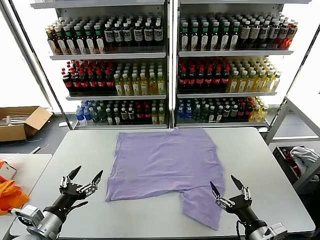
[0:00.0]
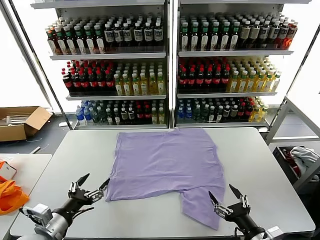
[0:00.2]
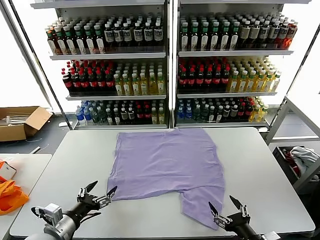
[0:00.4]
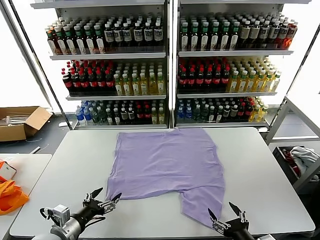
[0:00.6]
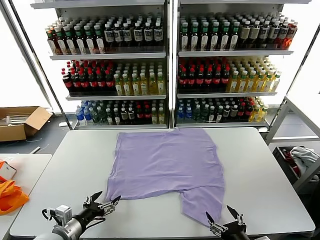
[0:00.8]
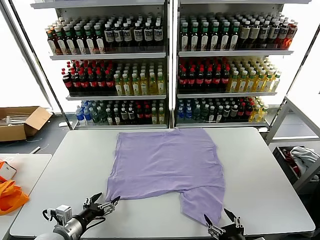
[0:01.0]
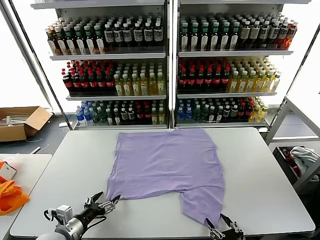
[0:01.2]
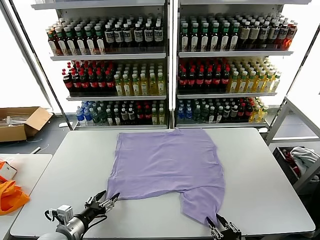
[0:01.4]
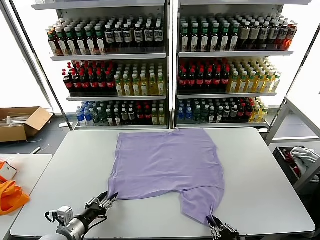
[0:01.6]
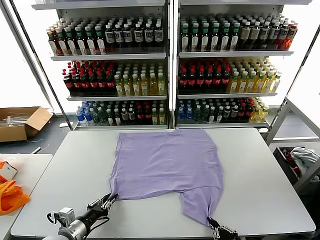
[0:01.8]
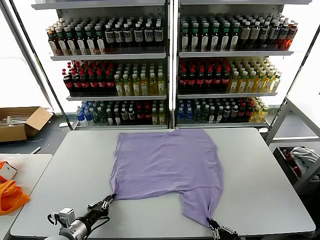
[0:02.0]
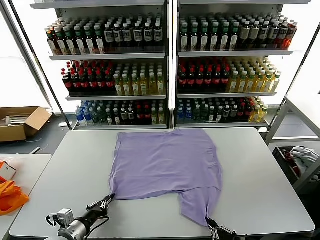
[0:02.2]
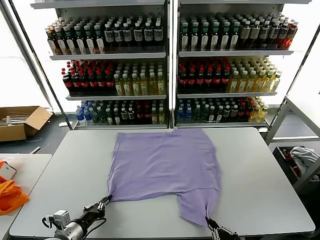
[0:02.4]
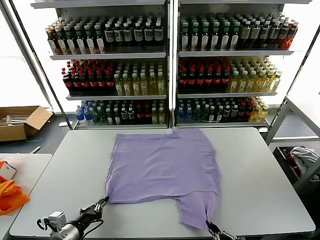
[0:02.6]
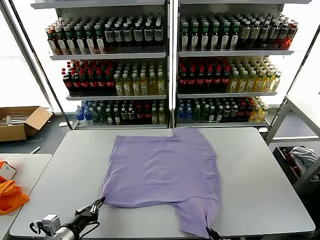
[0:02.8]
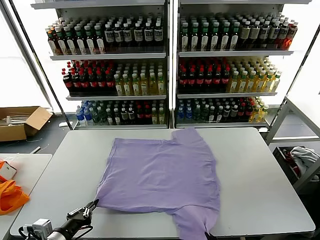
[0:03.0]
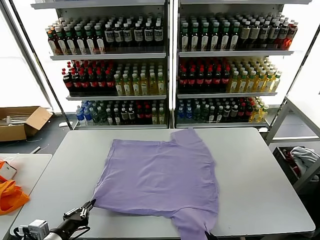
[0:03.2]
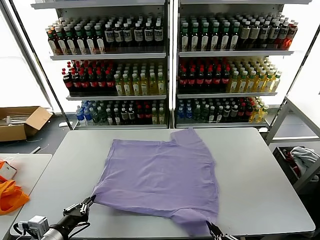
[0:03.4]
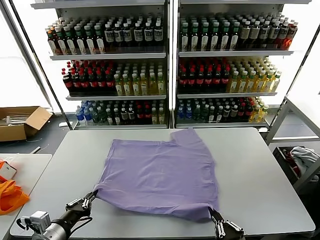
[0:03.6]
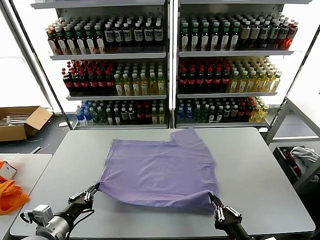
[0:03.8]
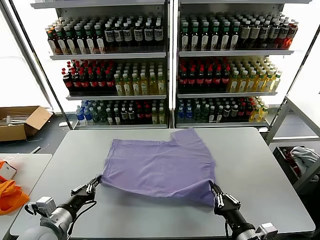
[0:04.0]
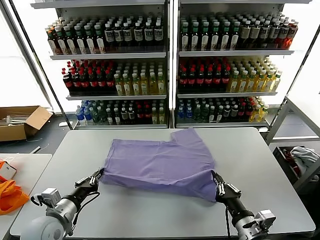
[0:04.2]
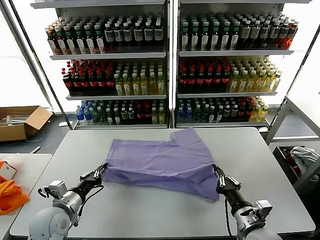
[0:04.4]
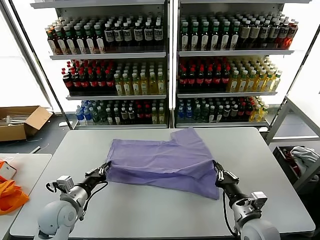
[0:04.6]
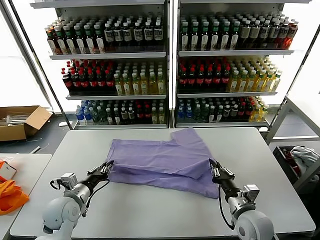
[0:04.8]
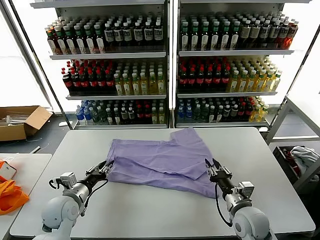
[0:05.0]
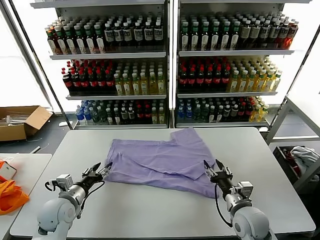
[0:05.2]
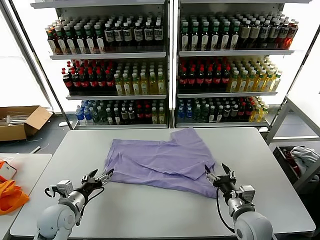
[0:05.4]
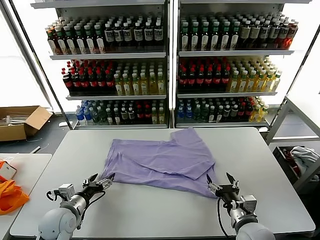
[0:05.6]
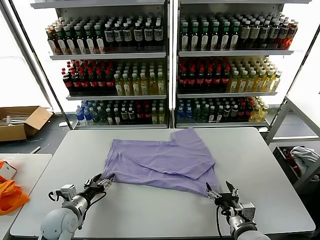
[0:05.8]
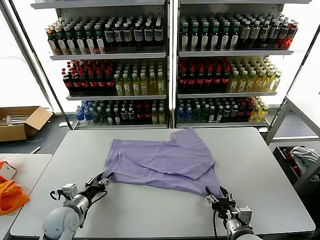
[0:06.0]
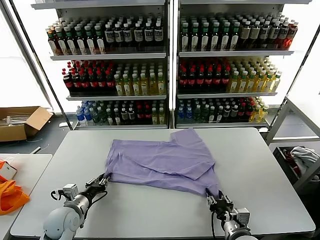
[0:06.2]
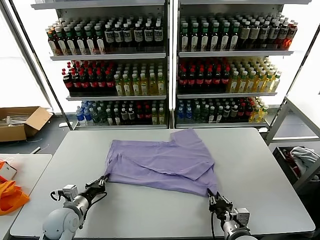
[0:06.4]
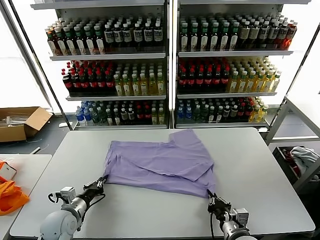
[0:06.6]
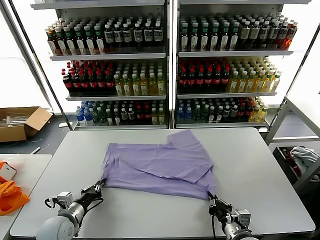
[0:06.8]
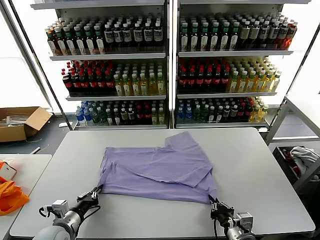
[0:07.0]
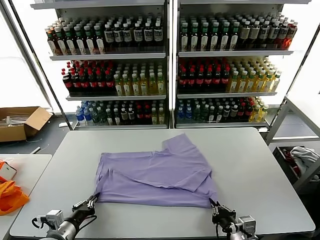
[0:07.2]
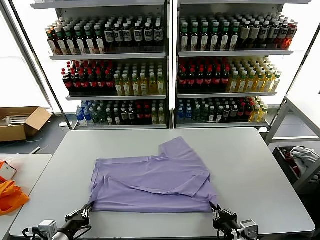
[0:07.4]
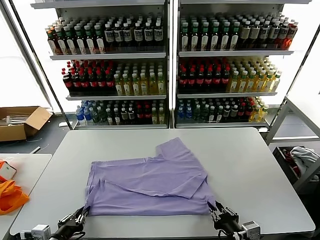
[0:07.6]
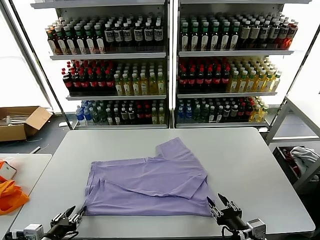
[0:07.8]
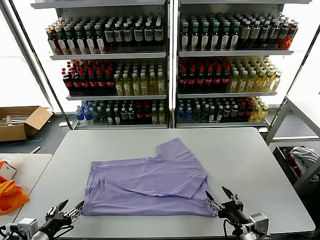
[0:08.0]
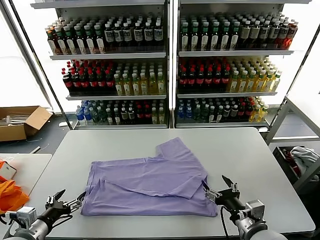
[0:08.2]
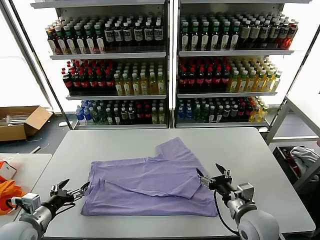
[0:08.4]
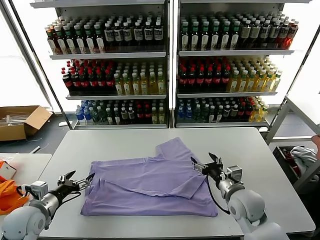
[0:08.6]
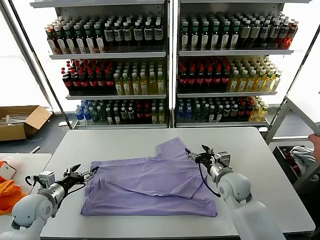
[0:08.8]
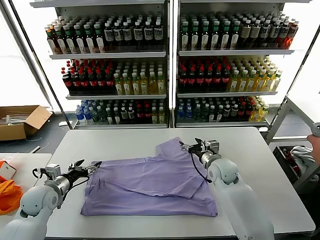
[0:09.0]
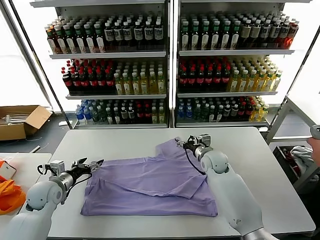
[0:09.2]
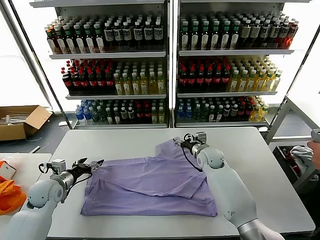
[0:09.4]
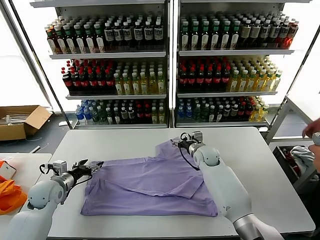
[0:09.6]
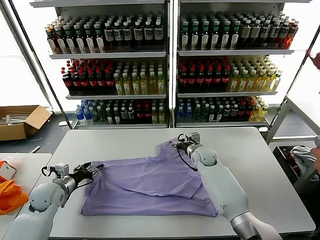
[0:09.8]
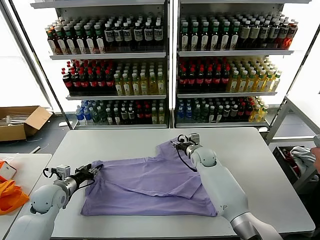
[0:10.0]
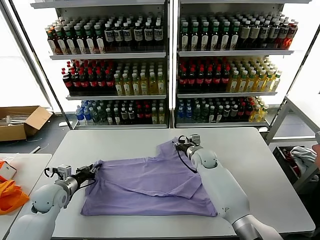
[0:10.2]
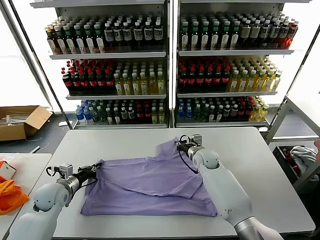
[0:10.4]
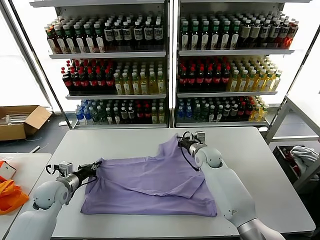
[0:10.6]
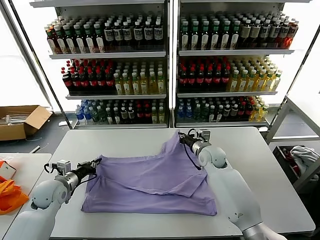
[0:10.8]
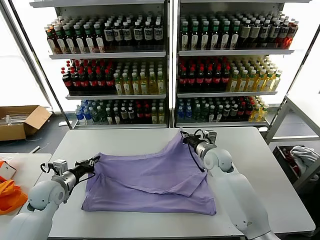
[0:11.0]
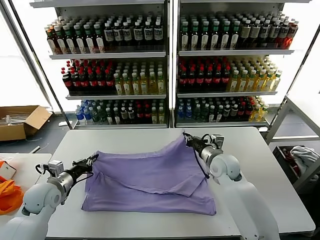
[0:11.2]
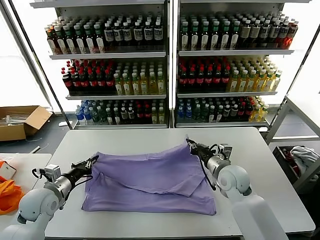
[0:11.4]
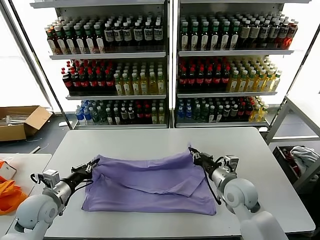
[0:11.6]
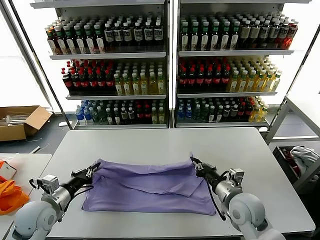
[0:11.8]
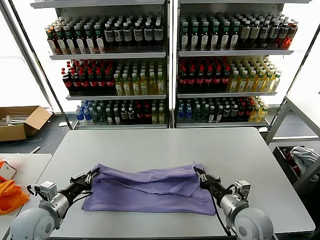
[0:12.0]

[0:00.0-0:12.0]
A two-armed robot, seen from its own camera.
Task of the whole recording: fold and organize the clothes.
Step, 0.0 to 2.6 s: use both grippers simultaneously to clamp the lower edge of the clothing fabric.
Step, 2.8 to 5.2 s: use both grippers to drag the lower edge of the fabric forward and fold it over the upper edge.
Step, 5.4 to 8.0 s: Drag the clothes downward with both gripper.
Step, 8.2 to 10.4 s: use both grippers simultaneously to clamp the upper edge of the clothing fabric.
1.6 to 3.0 s: The left gripper shifts about 10 cm upward and backward, and closes its fingers; the right gripper shifts roughly 10 cm backward and upward.
3.0 to 4.4 s: The left gripper is displaced forward by roughly 10 cm. Meanwhile the right gripper is displaced forward by roughly 20 cm.
4.4 to 6.0 s: The right gripper goes forward and returns, approximately 5 cm each way, and opens up, while the left gripper goes roughly 5 cm downward, and opens its fingers.
6.0 to 7.6 s: The left gripper travels backward by some 15 cm, while the right gripper is displaced backward by some 5 cm, and closes and opens again.
7.6 to 9.0 s: The left gripper moves forward, roughly 20 cm, and opens up. The right gripper travels forward by roughly 30 cm, and opens up.
9.0 to 10.4 s: The left gripper closes up, while the right gripper shifts by roughly 5 cm, and closes.
10.4 to 12.0 s: The right gripper heads backward, covering some 25 cm; the left gripper shifts about 10 cm backward and upward.

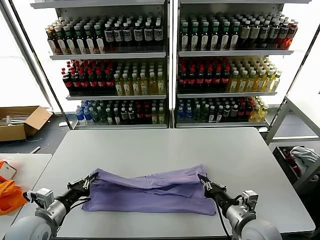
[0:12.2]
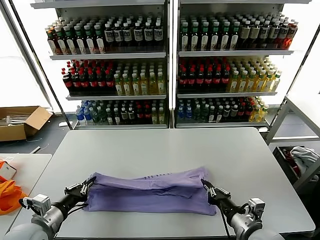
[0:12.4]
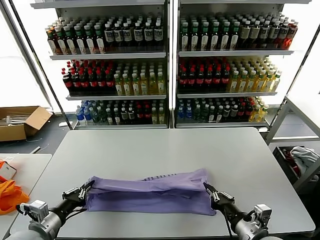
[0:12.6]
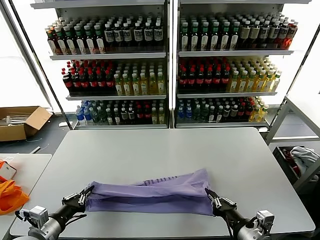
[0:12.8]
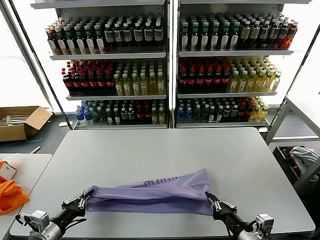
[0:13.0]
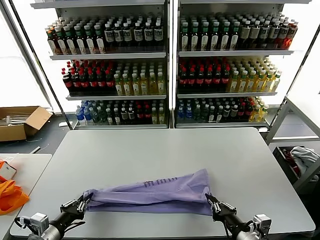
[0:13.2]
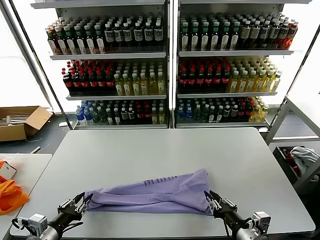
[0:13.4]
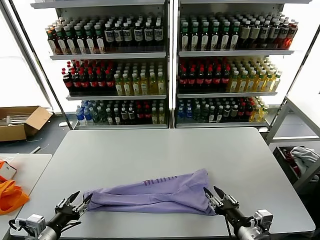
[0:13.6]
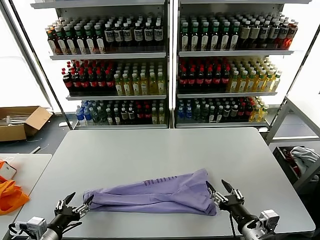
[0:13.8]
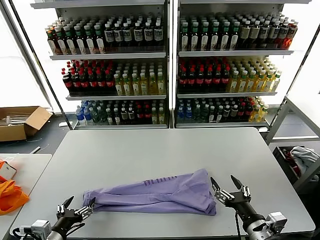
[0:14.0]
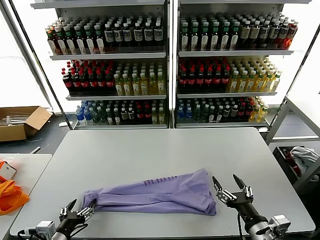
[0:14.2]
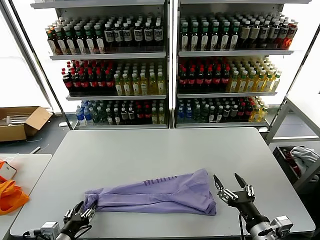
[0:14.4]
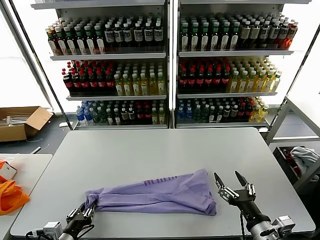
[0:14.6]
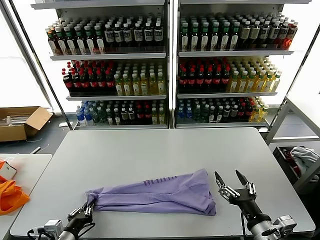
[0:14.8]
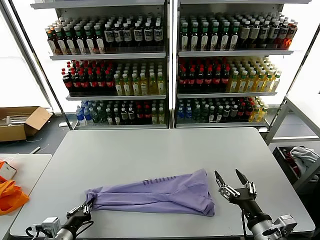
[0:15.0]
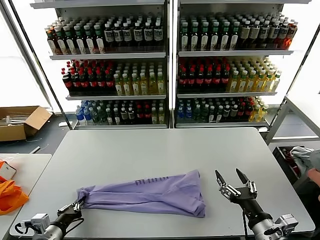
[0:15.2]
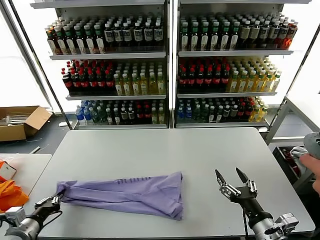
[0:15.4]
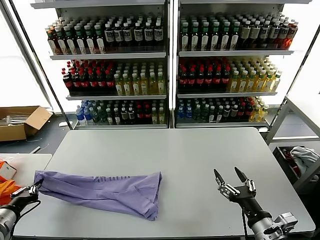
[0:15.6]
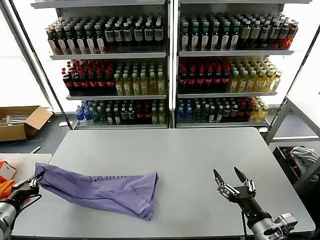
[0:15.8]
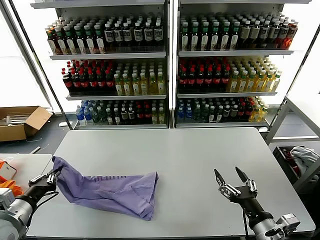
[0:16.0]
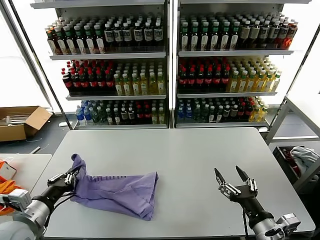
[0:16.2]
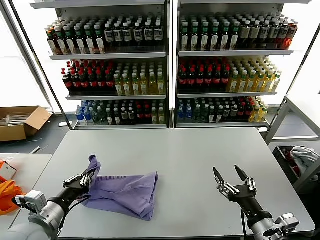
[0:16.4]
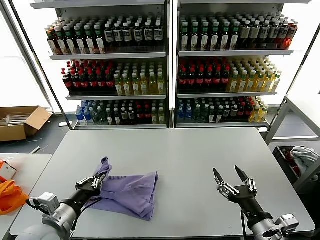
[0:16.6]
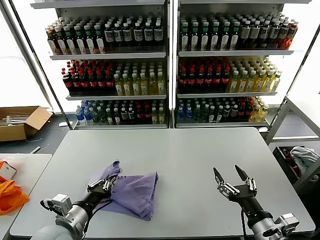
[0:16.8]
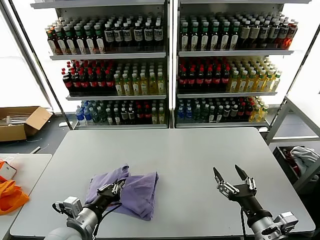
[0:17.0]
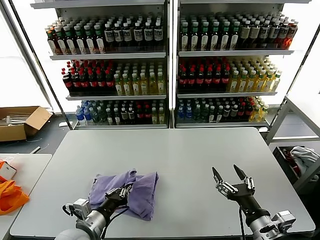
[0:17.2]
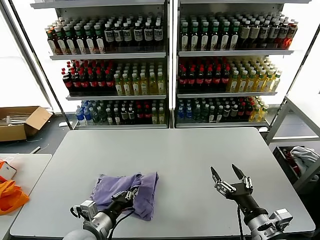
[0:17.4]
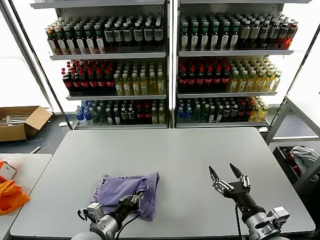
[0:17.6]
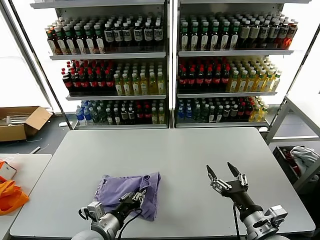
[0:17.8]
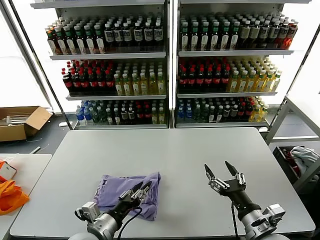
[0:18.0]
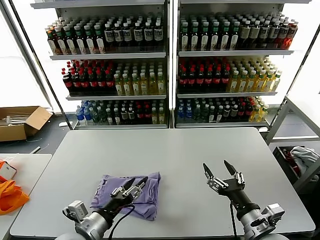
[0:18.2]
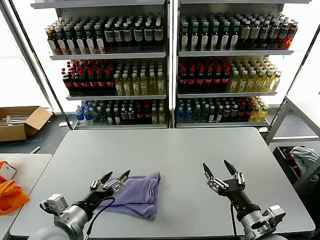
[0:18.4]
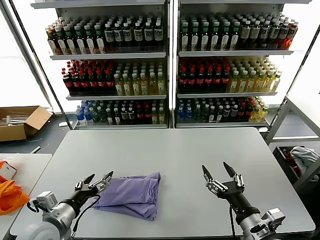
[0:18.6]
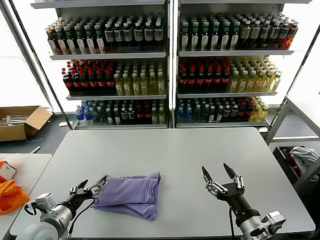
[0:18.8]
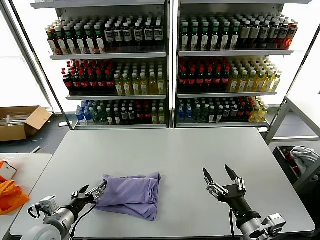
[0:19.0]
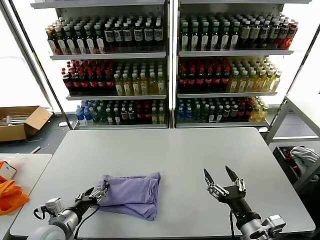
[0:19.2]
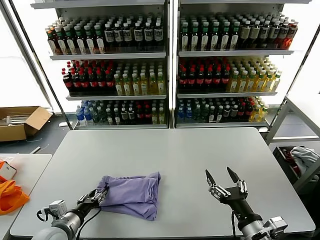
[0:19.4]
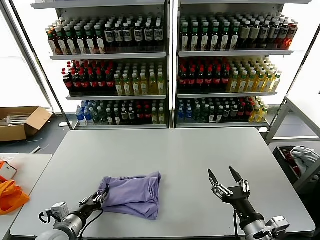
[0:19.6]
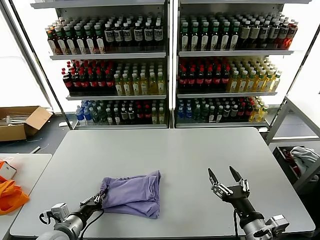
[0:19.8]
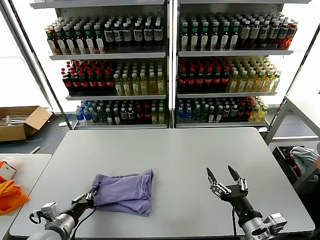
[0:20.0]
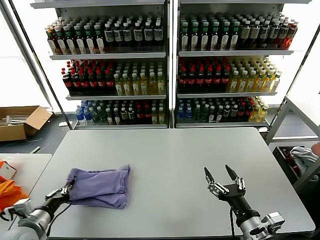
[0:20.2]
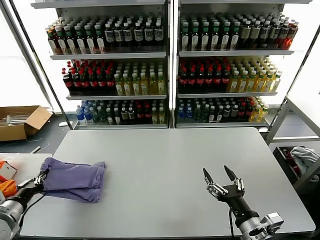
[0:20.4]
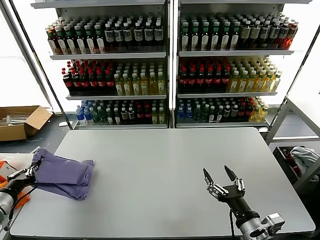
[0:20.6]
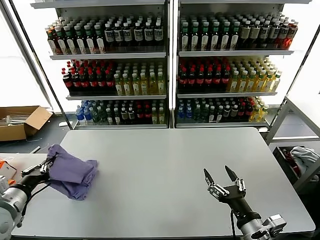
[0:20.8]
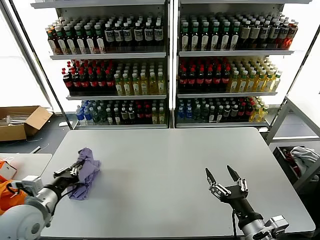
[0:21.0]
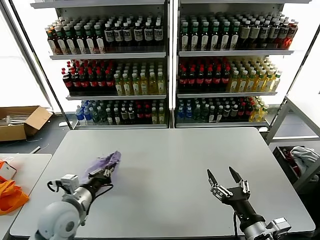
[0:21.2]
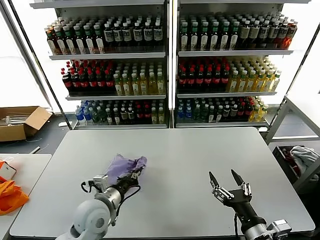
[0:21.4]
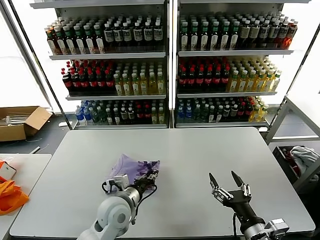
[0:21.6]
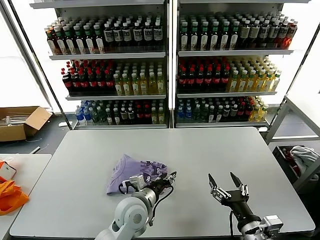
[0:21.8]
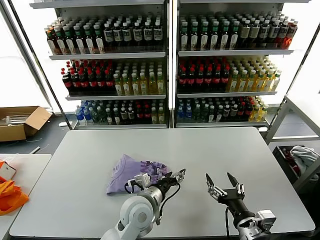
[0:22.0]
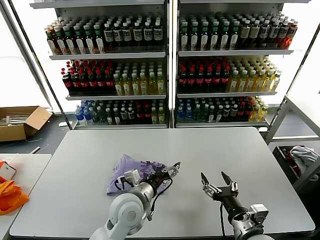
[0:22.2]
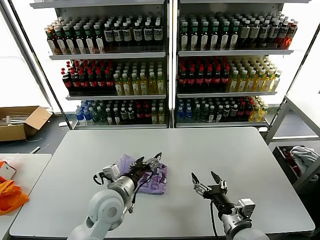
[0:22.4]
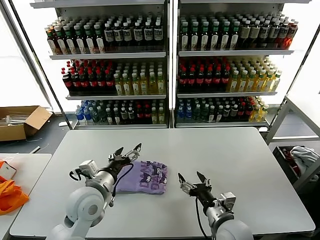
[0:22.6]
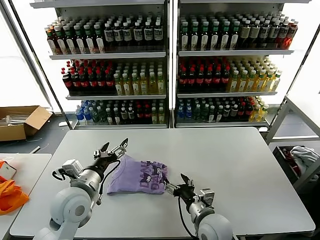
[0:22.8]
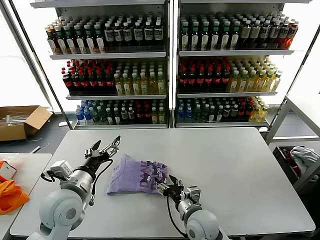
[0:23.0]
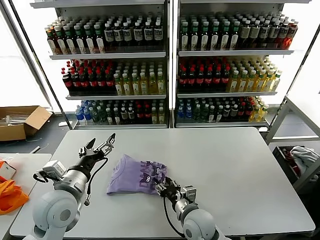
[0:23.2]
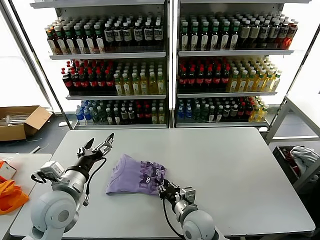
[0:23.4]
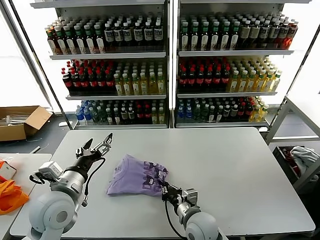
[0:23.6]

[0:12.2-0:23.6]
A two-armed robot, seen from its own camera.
Task of the whole recording: fold and organize the clothes.
Step, 13.8 to 14.8 s: use the left gripper to clamp the left edge of the fabric.
Step, 15.0 to 18.0 s: use the left gripper to drag the left edge of the fabric to the left and folds it over the right edge.
Step, 18.2 to 21.8 s: Flip the folded clothes over with left gripper.
12.2 to 13.6 s: The right gripper ends up approximately 5 cm from where it was, and opens up; the left gripper goes about 5 cm backward, and opens its fingers.
13.6 to 15.0 s: The left gripper changes place by roughly 5 cm, and closes up. The right gripper opens up.
15.0 to 16.4 s: The left gripper travels upward by roughly 10 cm, and reaches roughly 15 cm to the left, then returns.
16.4 to 17.8 s: The left gripper shifts approximately 15 cm to the right and downward.
17.8 to 19.4 s: The left gripper moves to the left, some 10 cm, and opens its fingers.
19.4 to 20.8 s: The left gripper shifts about 15 cm upward and to the left, and closes.
20.8 to 22.2 s: The left gripper heads to the right, covering roughly 35 cm, and opens its fingers.
22.2 to 23.6 s: The right gripper shifts about 20 cm to the left, forward and downward, and closes. The left gripper is displaced to the left and upward by roughly 20 cm.
